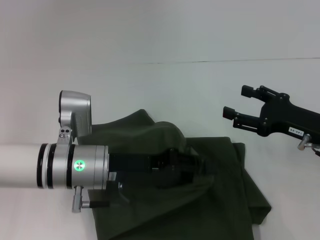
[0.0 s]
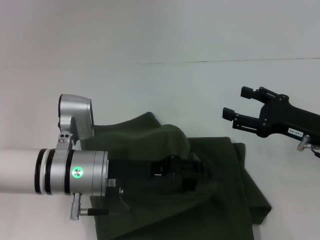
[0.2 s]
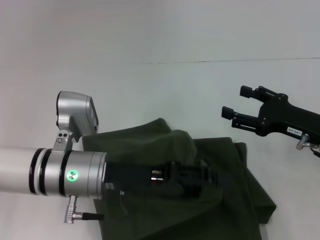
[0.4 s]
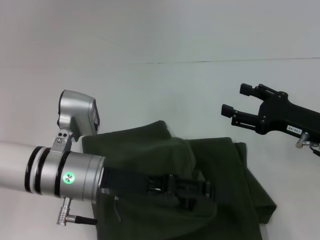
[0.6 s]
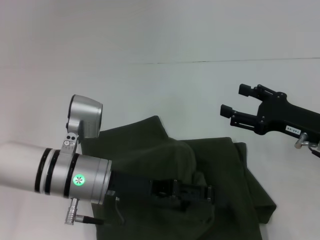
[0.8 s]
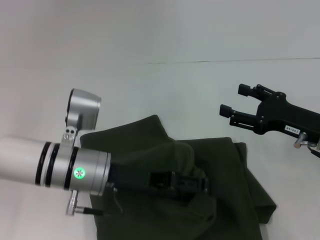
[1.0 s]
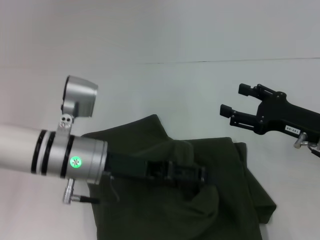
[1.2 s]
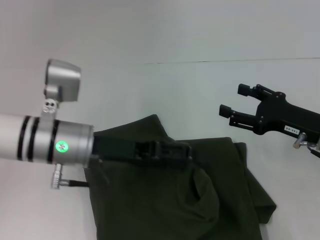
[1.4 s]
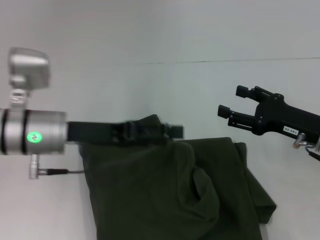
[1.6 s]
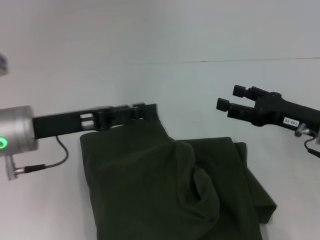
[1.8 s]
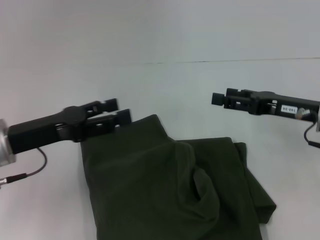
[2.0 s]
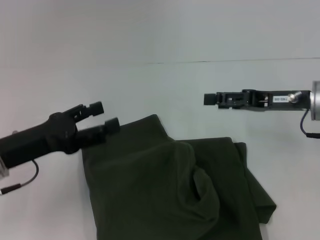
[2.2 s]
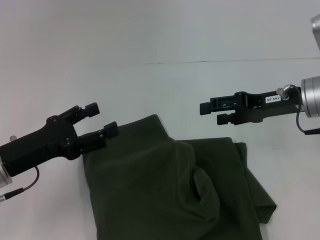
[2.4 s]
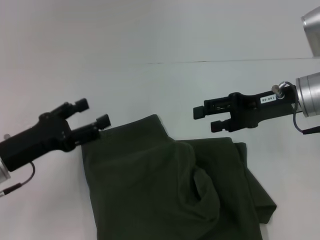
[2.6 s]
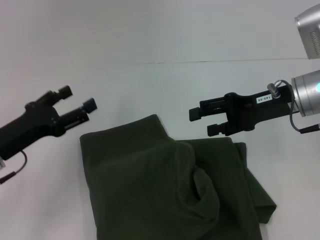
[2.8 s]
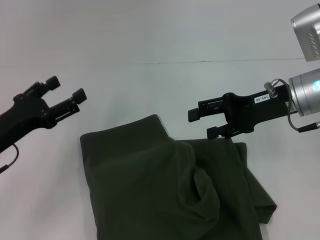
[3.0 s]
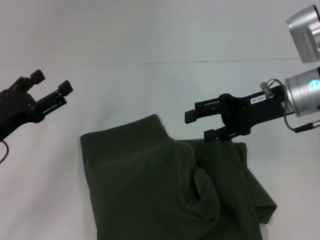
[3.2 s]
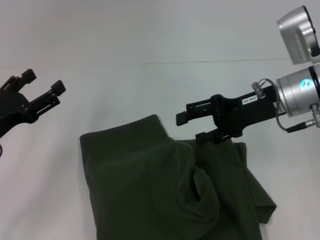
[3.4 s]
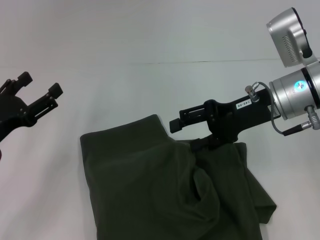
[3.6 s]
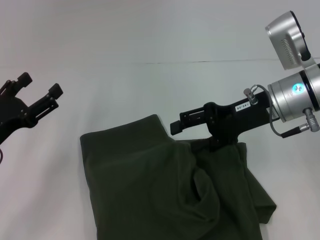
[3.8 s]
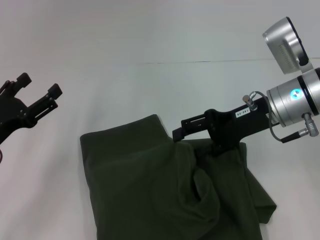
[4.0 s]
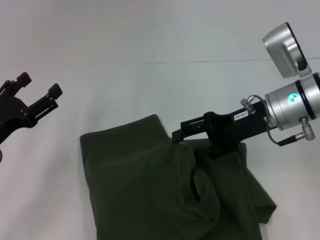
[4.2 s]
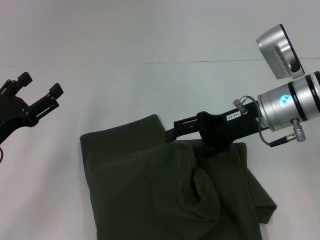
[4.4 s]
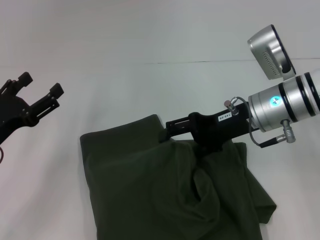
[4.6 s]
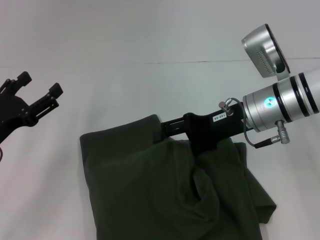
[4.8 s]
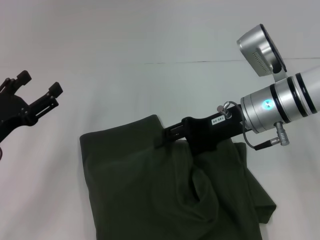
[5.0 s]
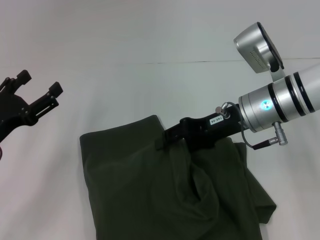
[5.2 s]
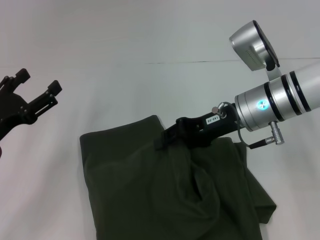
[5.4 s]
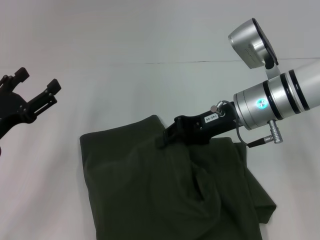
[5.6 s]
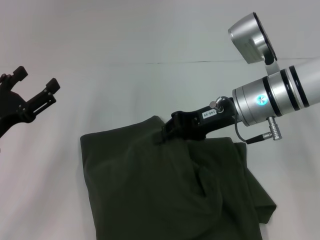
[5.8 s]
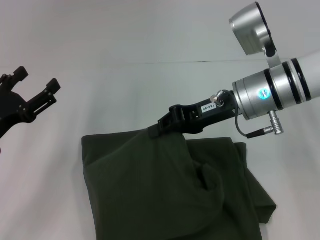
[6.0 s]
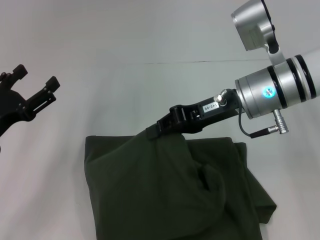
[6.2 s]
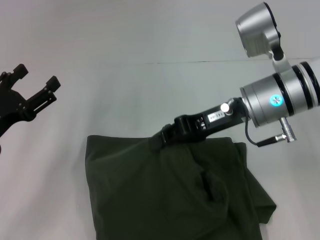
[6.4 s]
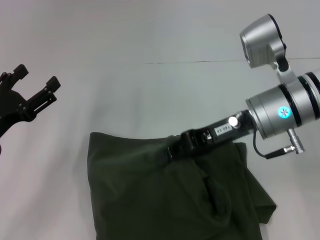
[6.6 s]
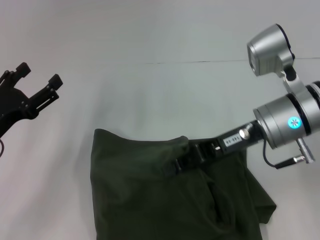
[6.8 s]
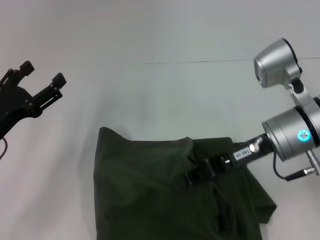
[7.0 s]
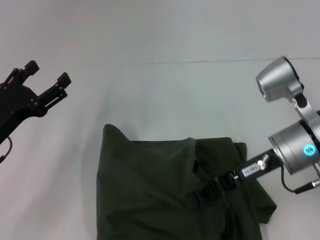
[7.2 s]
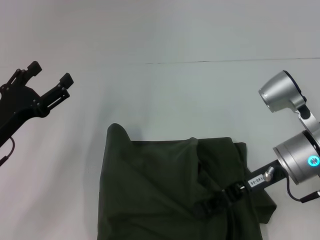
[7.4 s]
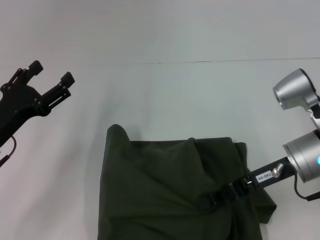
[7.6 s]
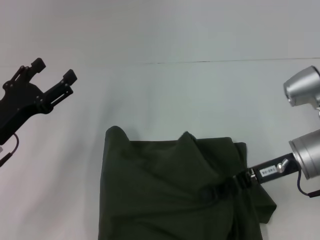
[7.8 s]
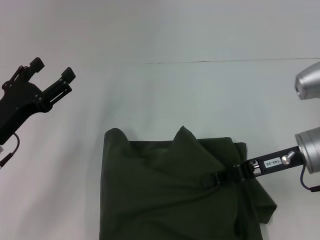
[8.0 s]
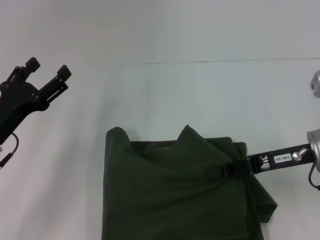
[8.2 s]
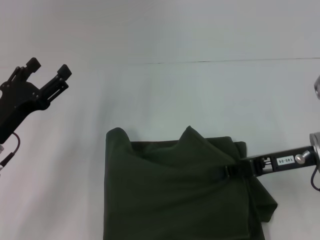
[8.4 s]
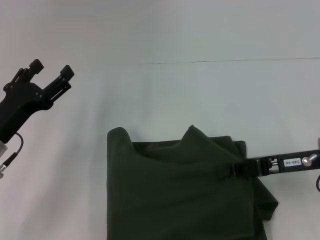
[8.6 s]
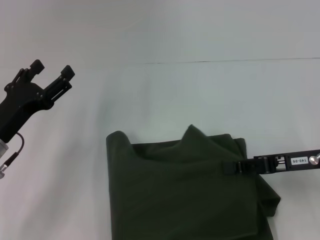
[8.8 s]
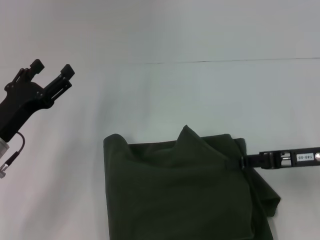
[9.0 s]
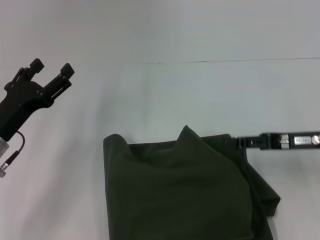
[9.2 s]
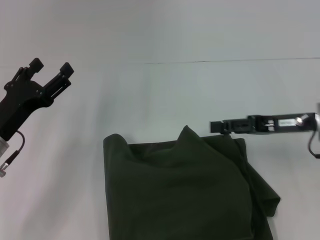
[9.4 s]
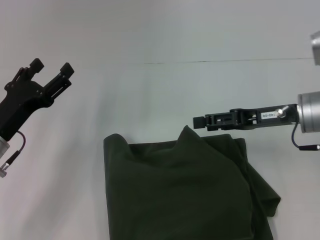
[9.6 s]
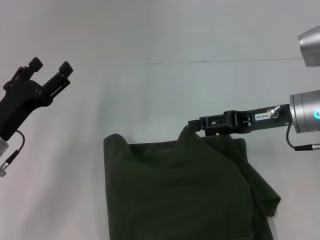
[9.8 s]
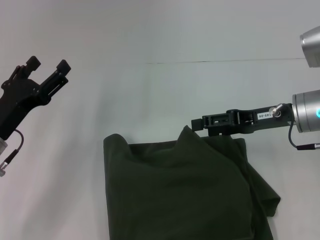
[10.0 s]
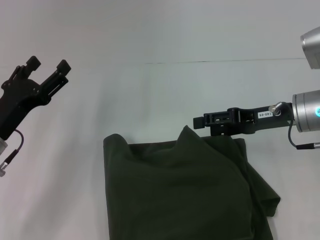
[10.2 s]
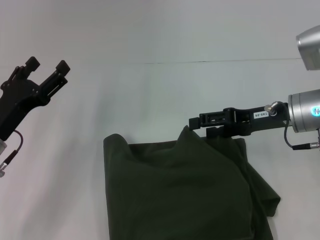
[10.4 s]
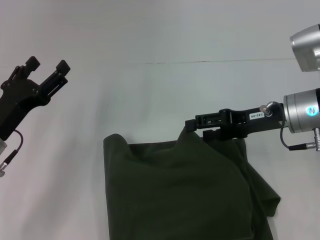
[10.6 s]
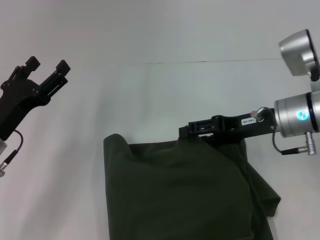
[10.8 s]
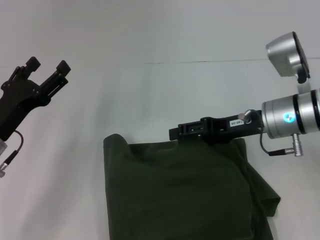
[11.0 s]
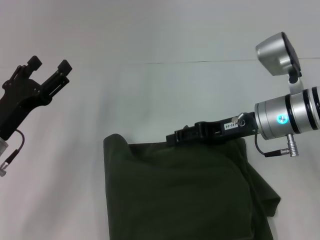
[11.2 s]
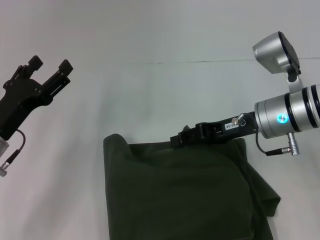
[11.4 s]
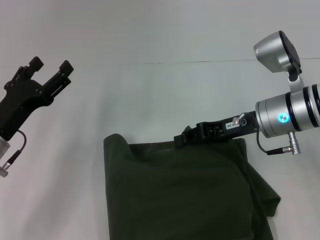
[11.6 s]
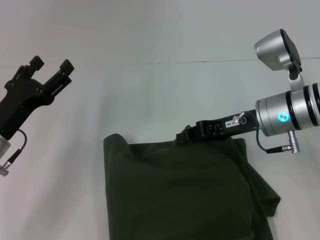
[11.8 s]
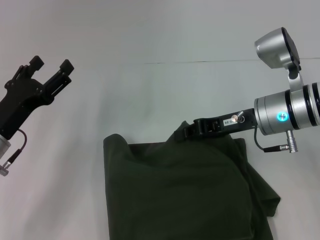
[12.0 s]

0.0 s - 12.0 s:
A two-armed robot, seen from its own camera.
0.0 s - 1.6 s: The left gripper moves to the left, roughly 5 cm, and opens its fingers.
1.6 s - 3.0 s: The right gripper moves upward and forward, some 10 cm. The left gripper shifts roughly 10 cm to the left.
3.0 s - 4.4 s: The grippers make only small movements.
4.4 s - 6.0 s: The right gripper closes up.
6.0 s - 7.6 s: The right gripper moves to the right and backward, about 10 cm.
7.6 s - 9.0 s: The right gripper travels to the right by approximately 5 cm.
9.0 s - 10.4 s: The right gripper heads forward and to the left, covering roughly 10 cm, and opens.
10.4 s - 12.0 s: The right gripper closes up.

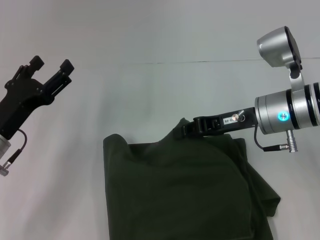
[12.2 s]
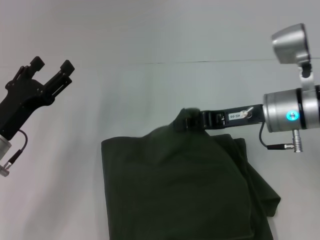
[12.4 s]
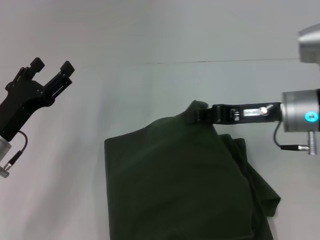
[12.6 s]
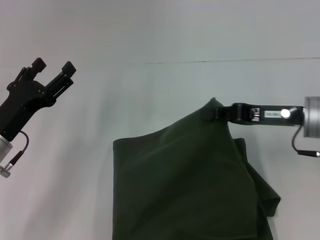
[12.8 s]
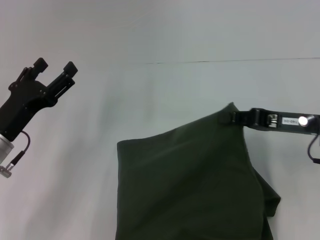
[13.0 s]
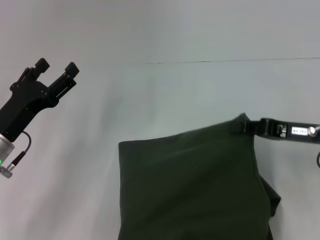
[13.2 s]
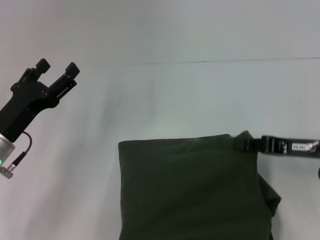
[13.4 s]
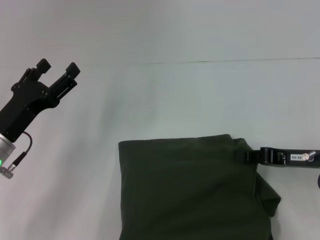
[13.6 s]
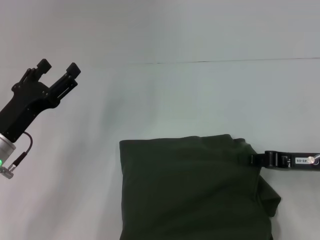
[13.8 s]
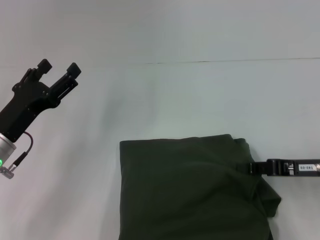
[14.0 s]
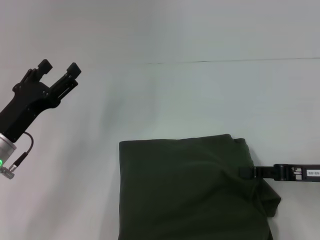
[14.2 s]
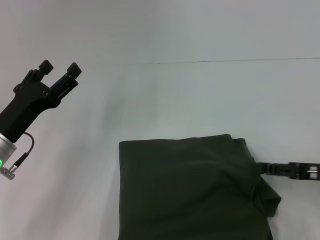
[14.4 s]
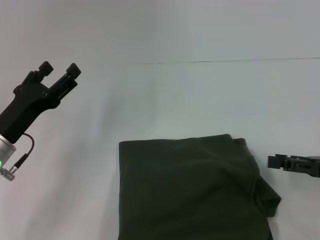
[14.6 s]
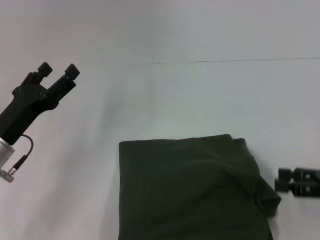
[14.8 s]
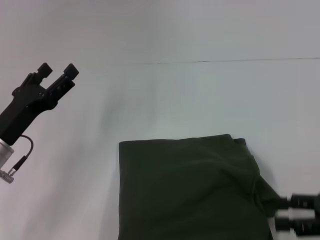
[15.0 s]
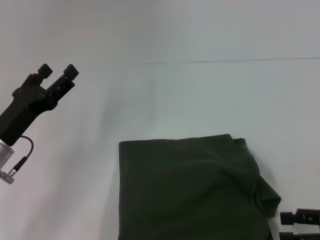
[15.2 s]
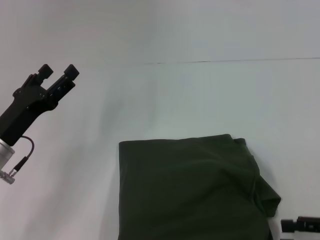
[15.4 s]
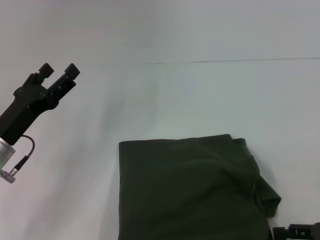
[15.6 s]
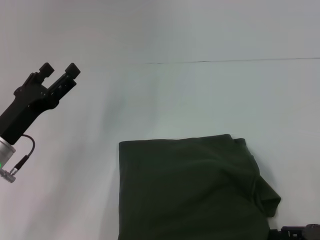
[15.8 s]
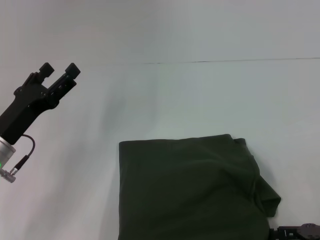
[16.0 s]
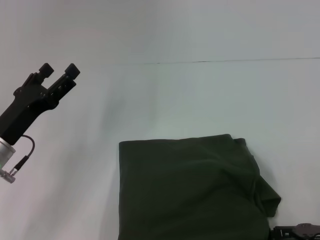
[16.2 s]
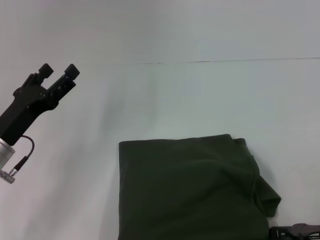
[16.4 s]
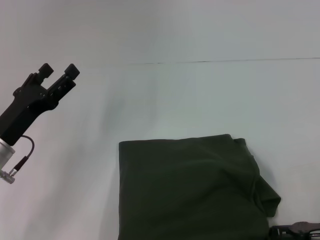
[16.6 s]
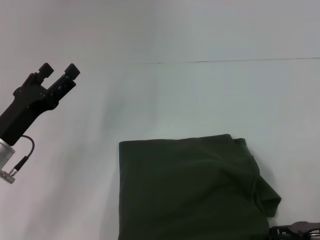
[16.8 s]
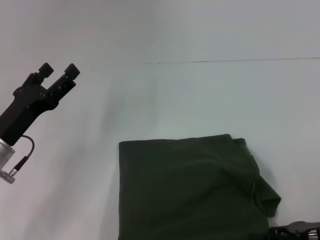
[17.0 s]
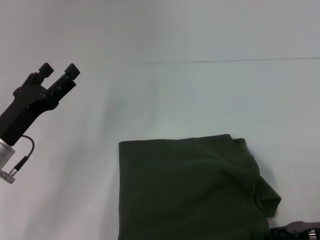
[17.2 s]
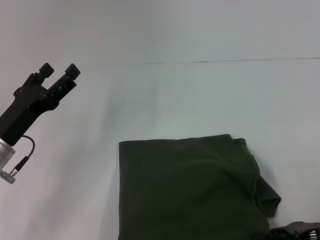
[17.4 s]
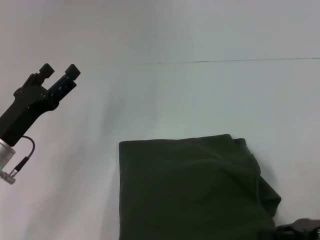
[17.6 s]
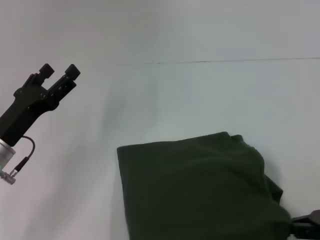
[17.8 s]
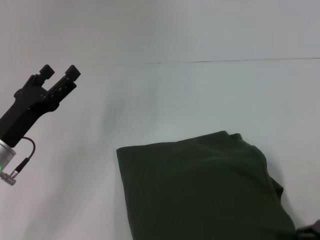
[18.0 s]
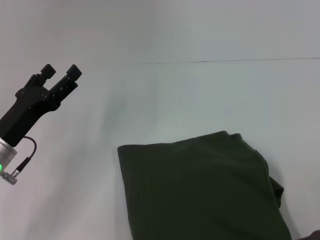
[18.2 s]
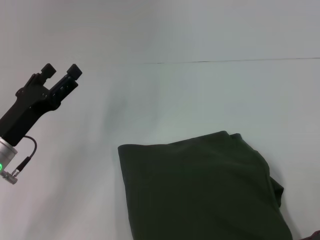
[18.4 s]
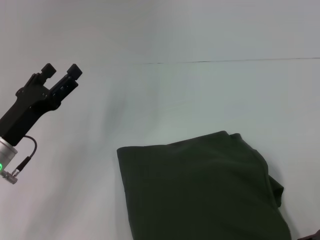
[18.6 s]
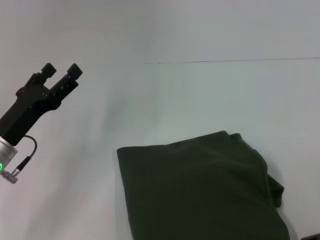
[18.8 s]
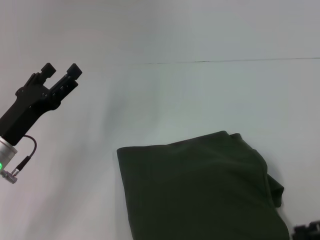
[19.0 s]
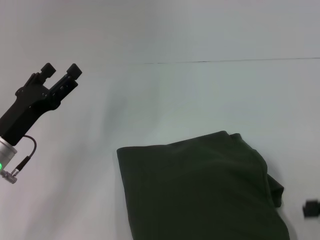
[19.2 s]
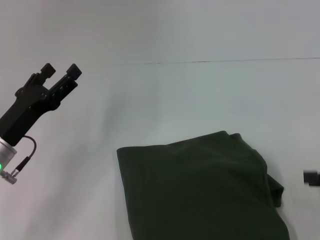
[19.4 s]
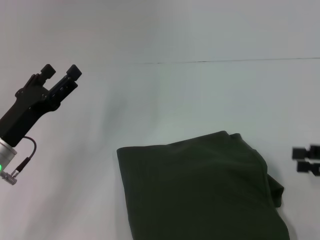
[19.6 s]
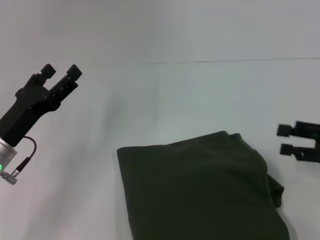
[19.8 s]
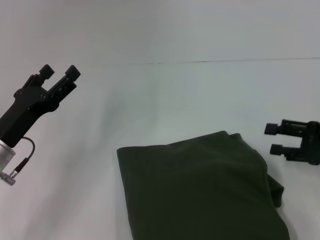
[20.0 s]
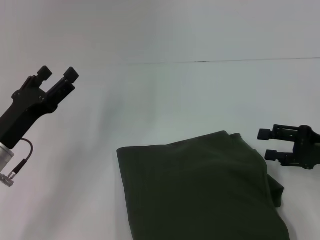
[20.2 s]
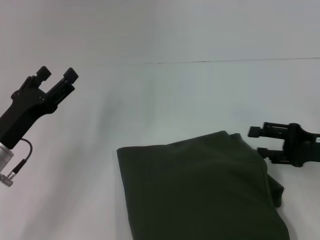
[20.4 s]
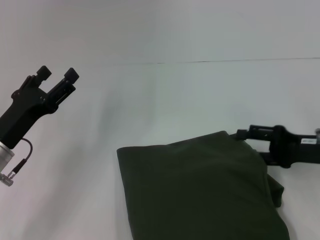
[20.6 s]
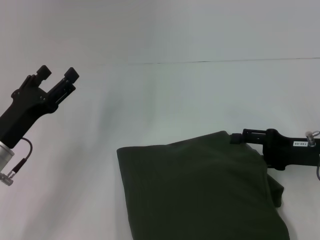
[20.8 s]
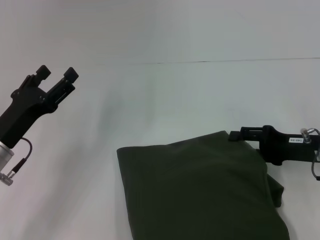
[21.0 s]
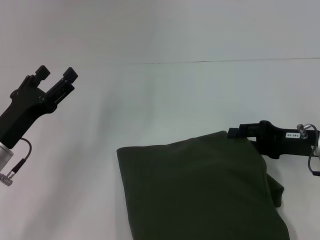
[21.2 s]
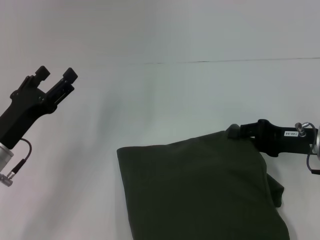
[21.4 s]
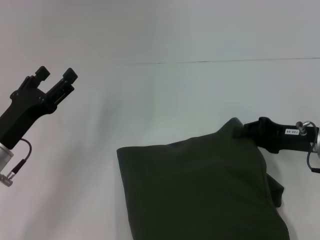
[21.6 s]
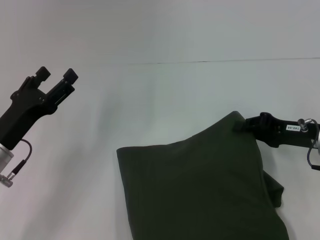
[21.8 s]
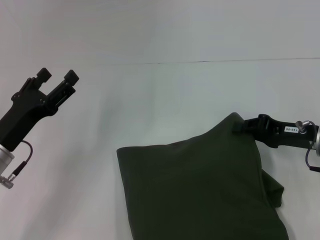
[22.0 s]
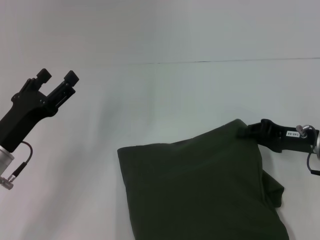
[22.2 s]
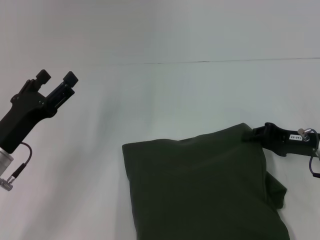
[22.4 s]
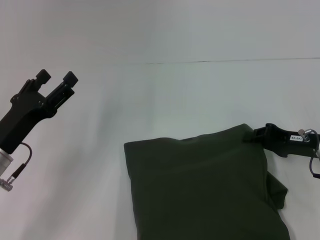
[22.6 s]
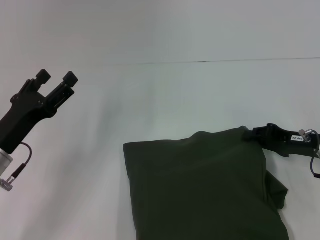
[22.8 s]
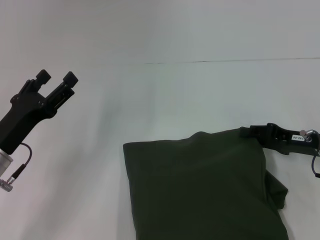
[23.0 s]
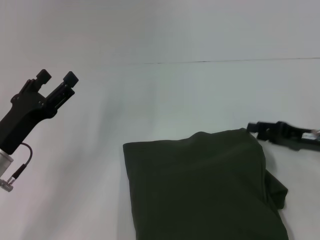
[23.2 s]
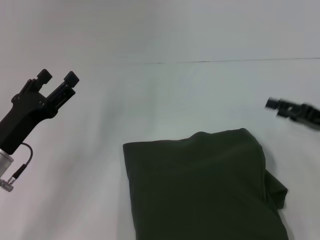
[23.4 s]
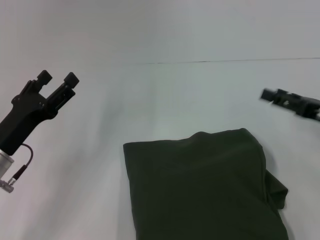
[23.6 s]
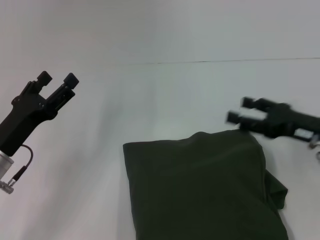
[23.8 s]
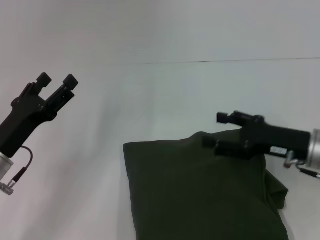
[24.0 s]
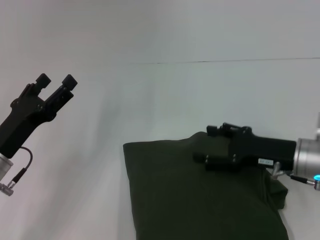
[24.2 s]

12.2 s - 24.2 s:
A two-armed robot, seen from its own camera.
12.2 s - 13.8 s: The right gripper goes approximately 15 cm to the right, backward and downward.
13.8 s - 15.2 s: The right gripper goes some 10 cm backward and to the right, and opens its fingers.
15.2 s - 16.6 s: The grippers stay close to where they were, moving slightly.
16.6 s - 18.2 s: The right gripper closes.
18.2 s - 19.8 s: The right gripper moves forward, some 5 cm, and opens.
19.8 s - 21.2 s: The right gripper is displaced to the left by about 5 cm.
21.2 s - 22.6 s: The right gripper closes up.
22.6 s - 24.2 s: The right gripper shifts about 5 cm to the left, and opens up.
